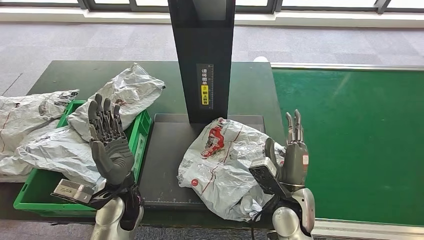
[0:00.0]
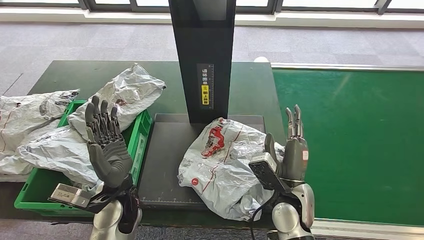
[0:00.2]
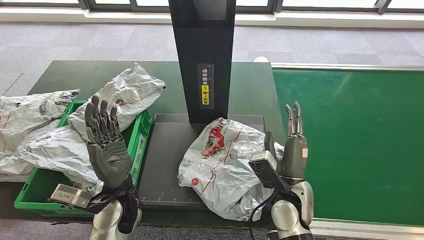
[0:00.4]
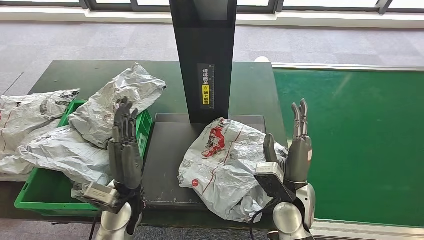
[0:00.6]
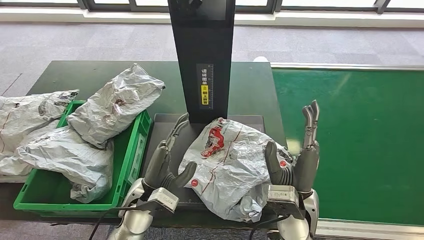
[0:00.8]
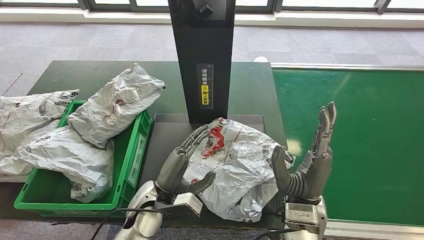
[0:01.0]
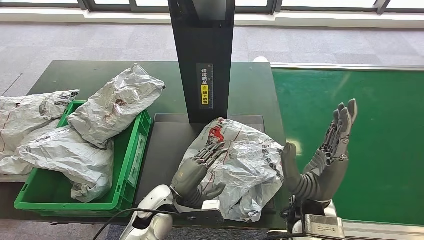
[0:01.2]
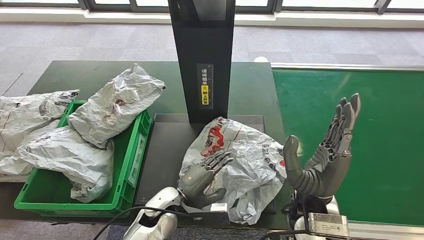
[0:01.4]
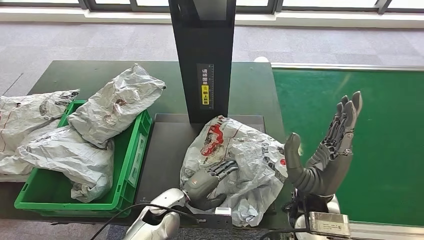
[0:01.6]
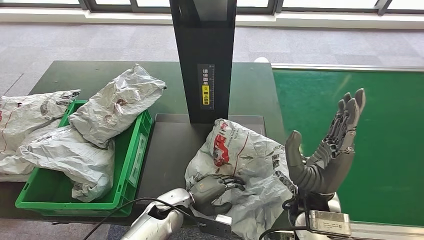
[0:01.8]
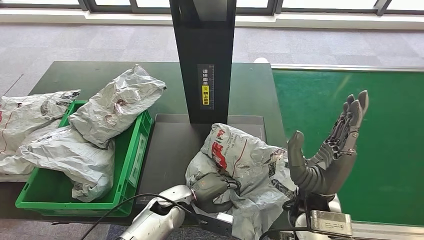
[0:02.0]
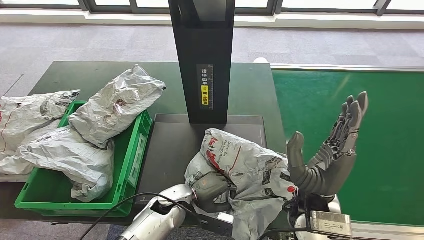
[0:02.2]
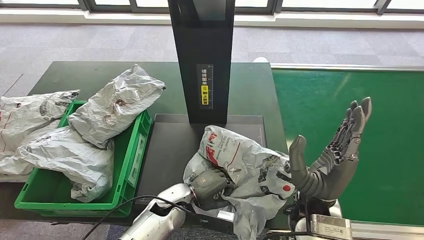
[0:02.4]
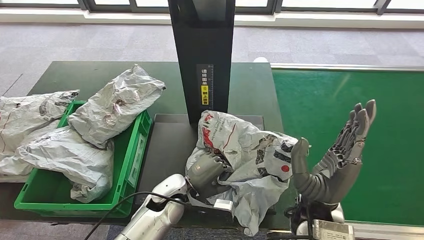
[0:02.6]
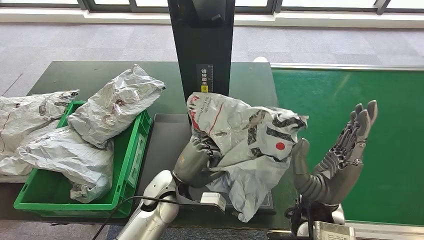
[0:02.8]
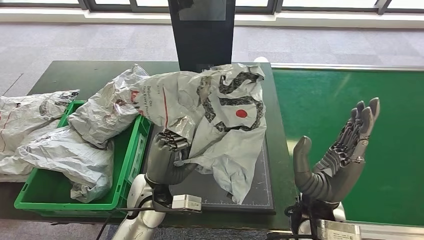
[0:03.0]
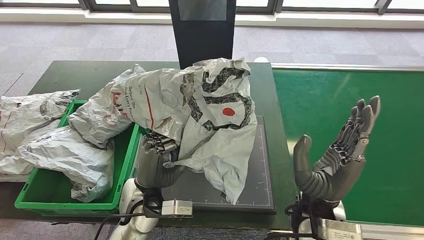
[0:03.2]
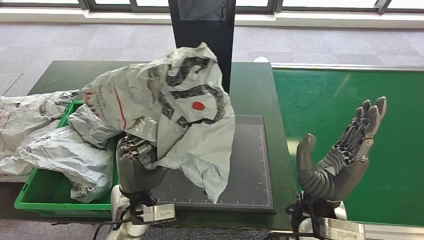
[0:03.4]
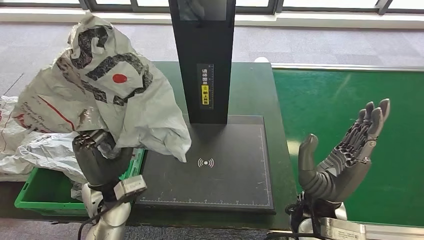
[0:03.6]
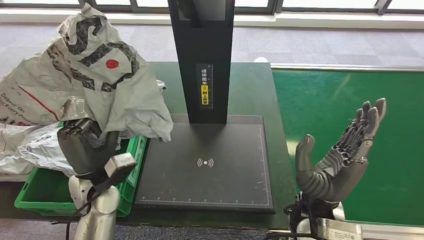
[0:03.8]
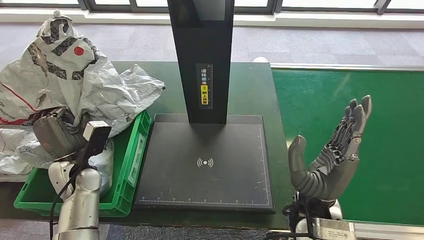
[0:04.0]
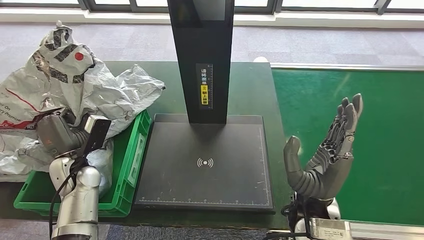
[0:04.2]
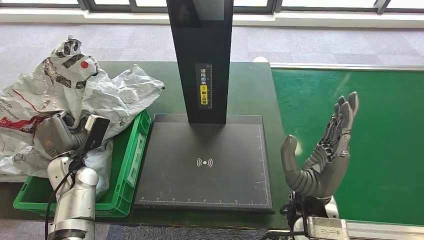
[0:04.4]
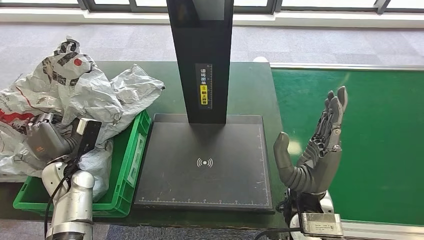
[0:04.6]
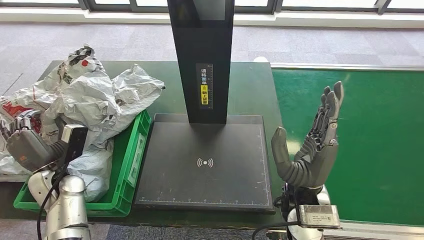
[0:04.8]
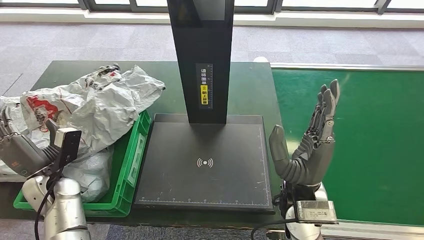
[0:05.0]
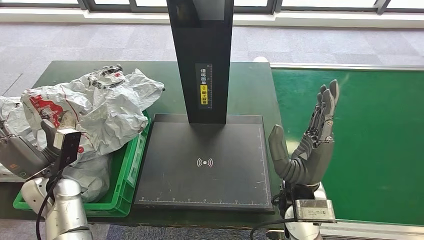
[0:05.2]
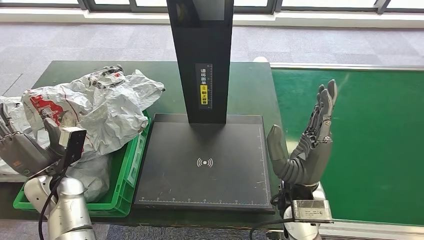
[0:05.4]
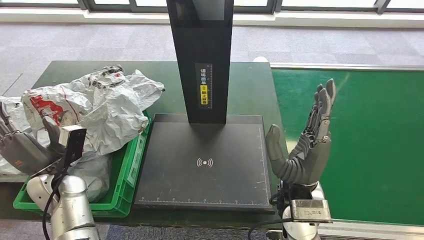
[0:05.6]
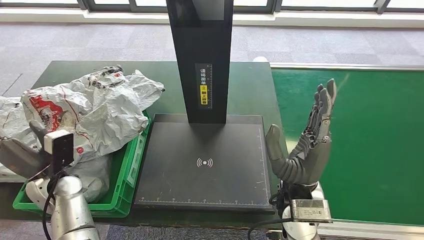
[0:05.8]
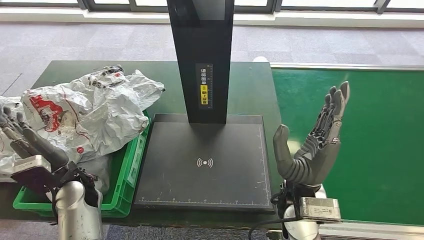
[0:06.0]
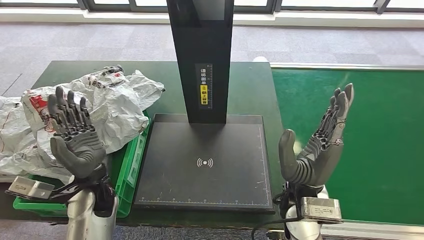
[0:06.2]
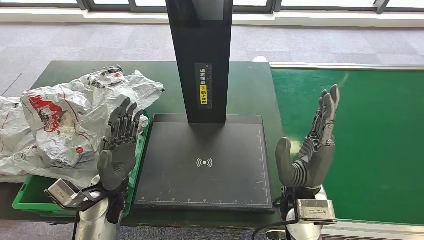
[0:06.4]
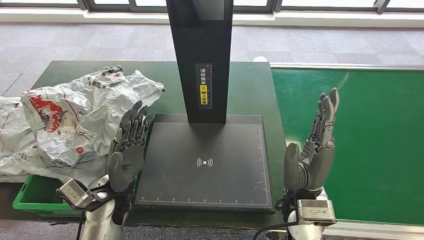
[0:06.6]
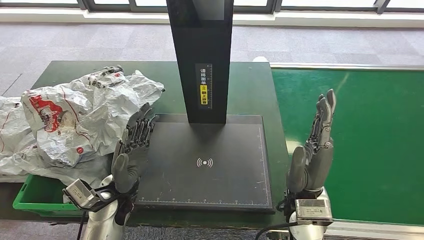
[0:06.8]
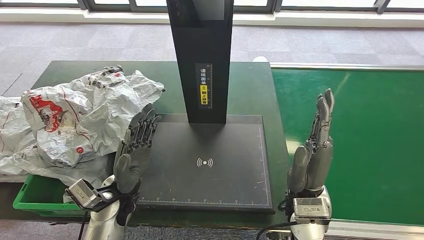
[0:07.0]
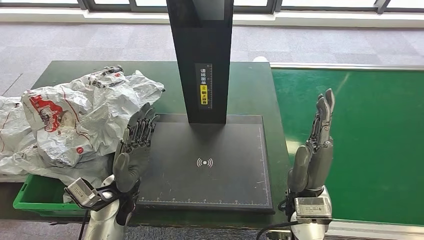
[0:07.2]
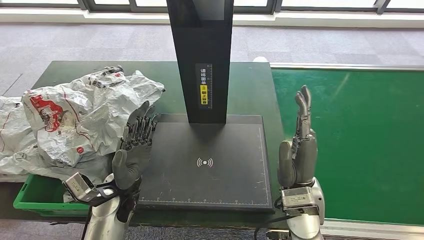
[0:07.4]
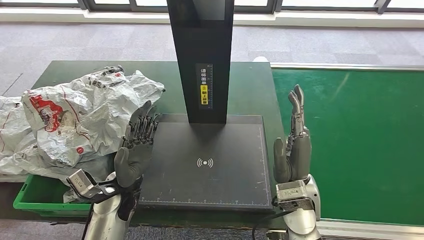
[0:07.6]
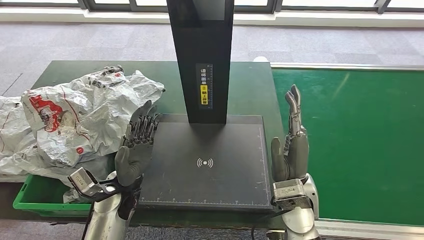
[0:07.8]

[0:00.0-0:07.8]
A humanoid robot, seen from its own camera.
Step, 0:00.0 to 0:04.0: Pick up the parcel from the inbound machine.
Step, 0:04.2 to 0:07.8: Place the parcel into the delivery box.
0:00.0 to 0:01.6: The right hand travels upward by about 10 cm. The left hand goes roughly 15 cm downward and to the right.
0:04.6 to 0:06.2: The left hand moves to the right, some 10 cm.
0:06.2 to 0:07.8: The left hand travels to the right by about 5 cm.
